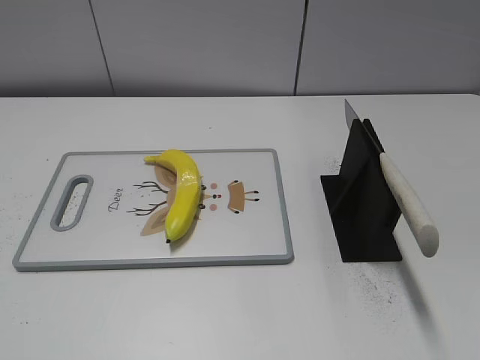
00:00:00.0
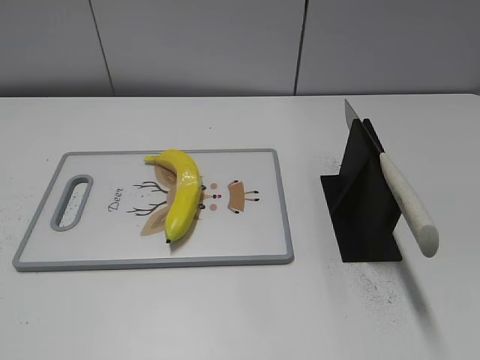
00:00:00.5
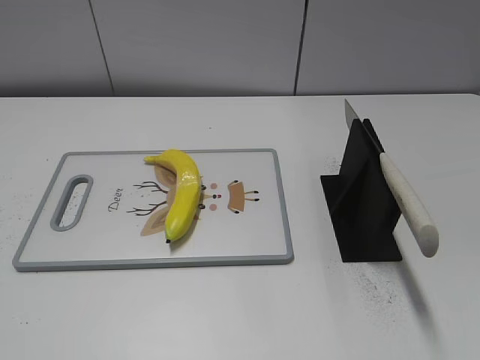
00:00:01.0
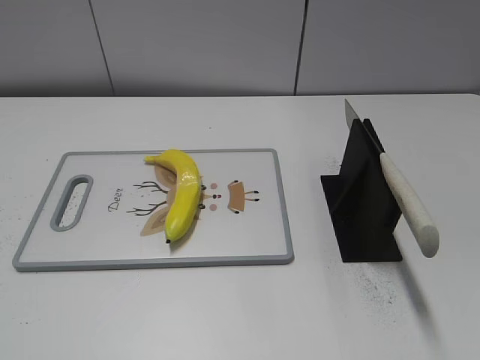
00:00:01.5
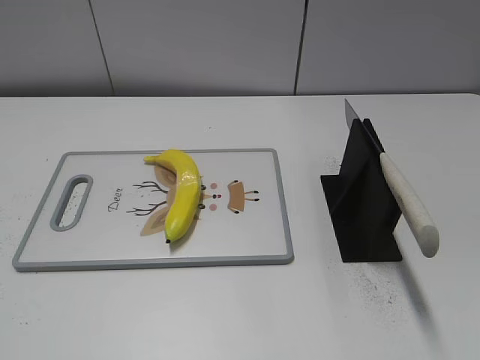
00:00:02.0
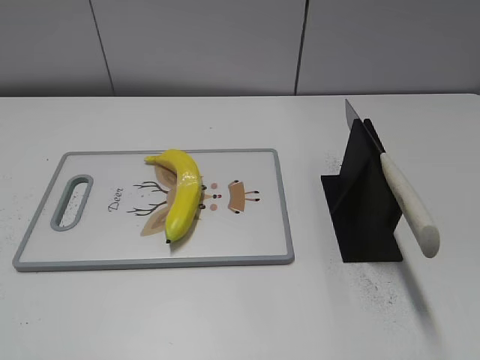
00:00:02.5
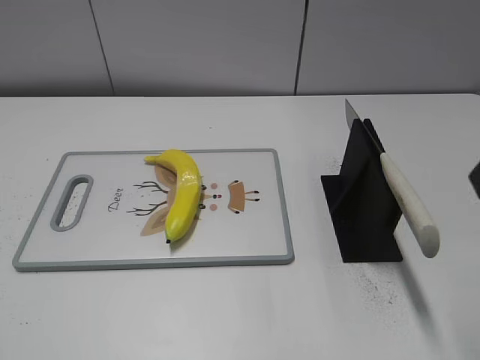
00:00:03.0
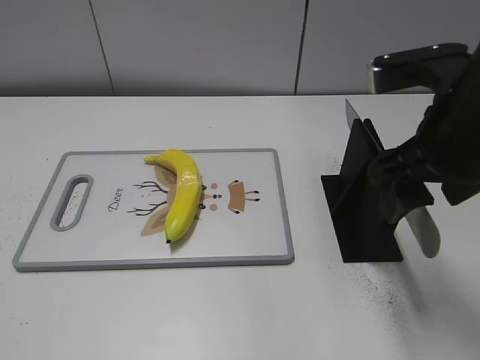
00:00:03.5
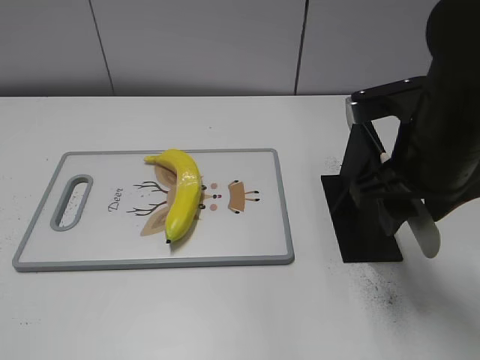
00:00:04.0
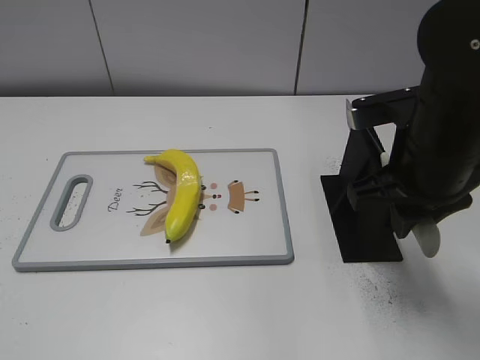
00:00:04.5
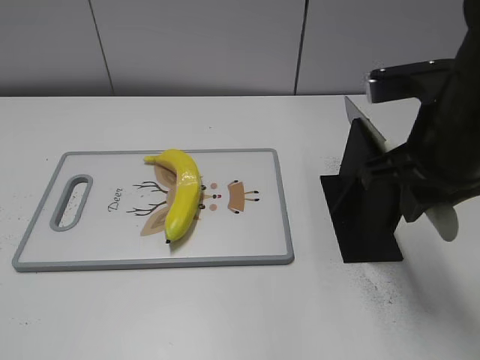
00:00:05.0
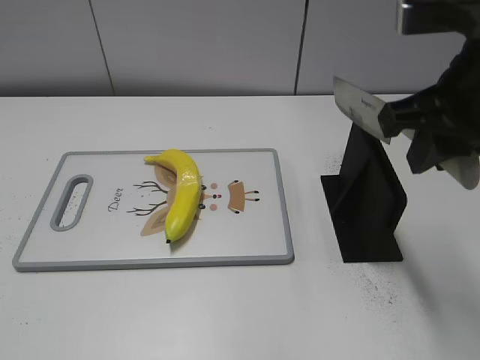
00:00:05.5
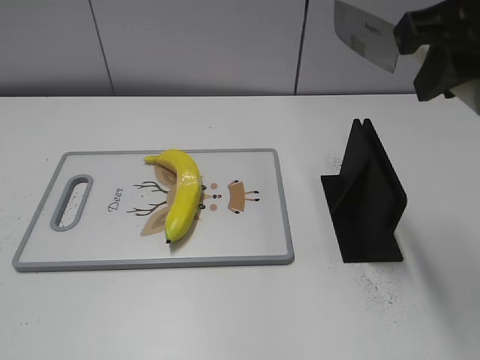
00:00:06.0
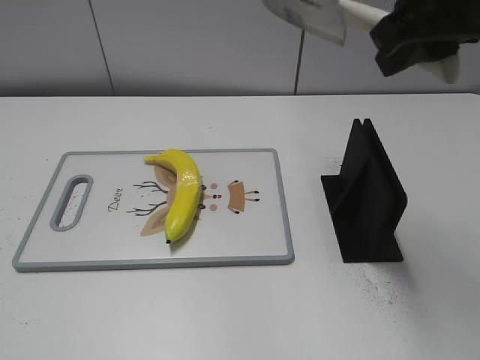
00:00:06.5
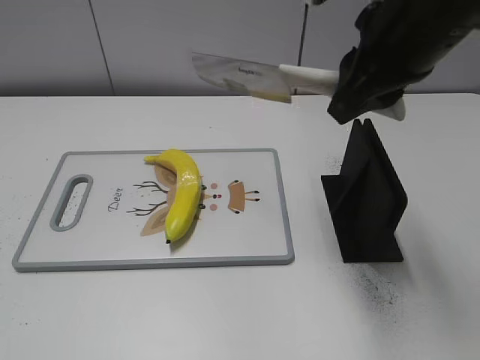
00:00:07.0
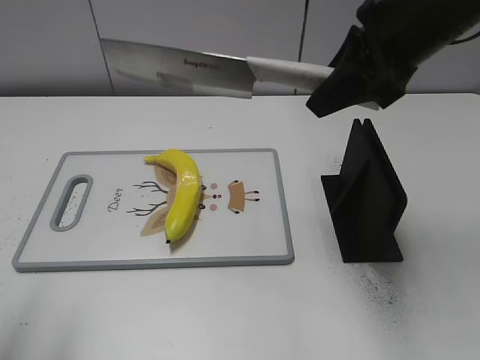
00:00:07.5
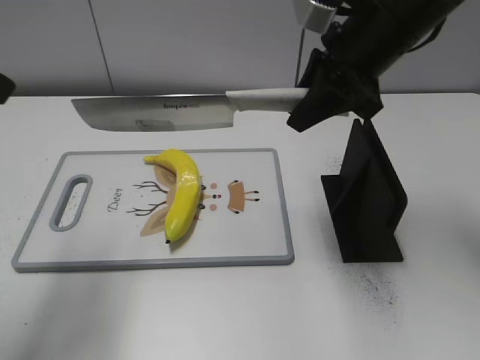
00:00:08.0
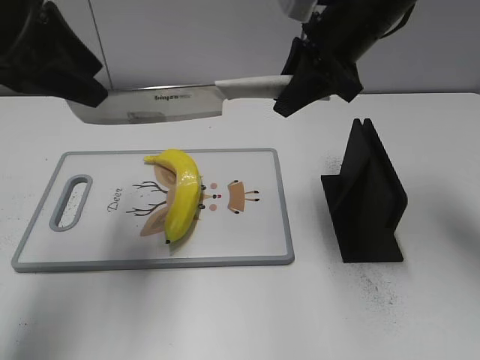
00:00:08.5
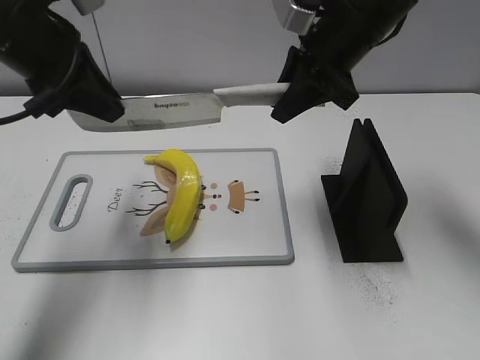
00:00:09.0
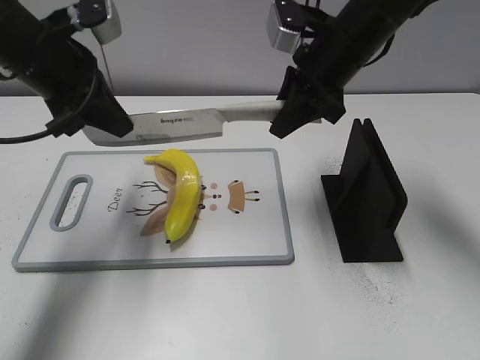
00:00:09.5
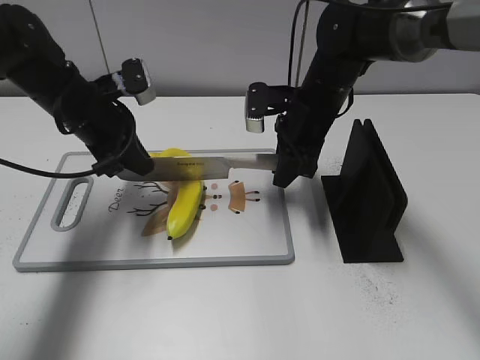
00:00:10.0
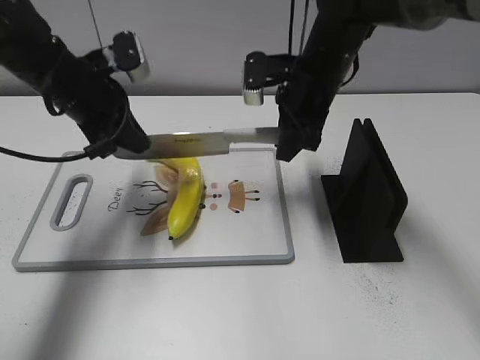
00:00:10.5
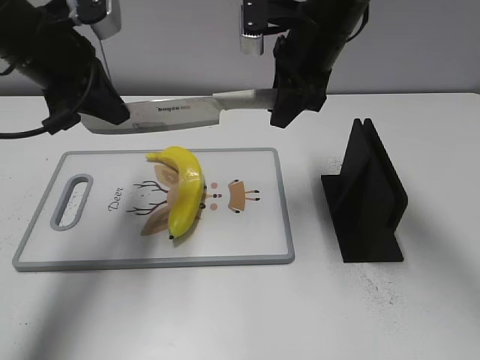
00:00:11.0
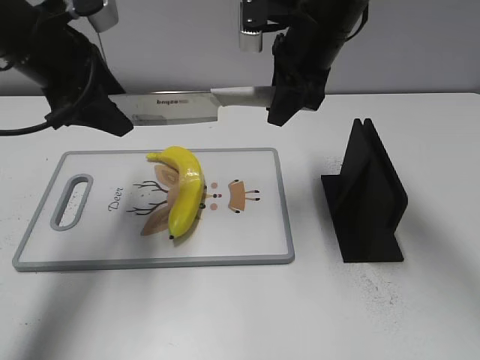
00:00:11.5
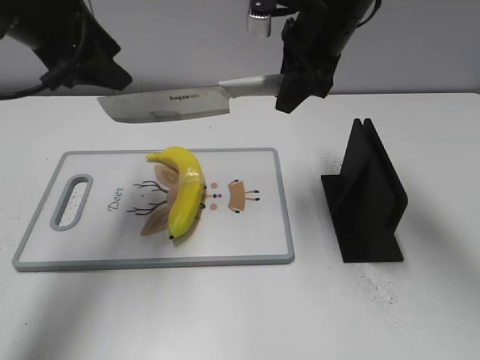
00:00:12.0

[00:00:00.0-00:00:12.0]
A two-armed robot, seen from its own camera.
Task of the whole recording: cut plastic banana.
Step, 00:00:00.0 to 00:00:05.0: Grab the knife handle with your right hand.
Step, 00:00:05.5 to 00:00:11.0: Lift the knife with your right hand.
00:00:02.0 to 00:00:04.0: The right gripper goes roughly 25 cm forward and to the left.
00:00:04.0 to 00:00:06.0: The right gripper moves upward, roughly 15 cm, and closes up.
00:00:06.0 to 00:00:08.0: The right gripper goes roughly 15 cm forward and downward. The left gripper is displaced forward by approximately 25 cm.
00:00:08.0 to 00:00:10.0: The left gripper moves downward and forward, approximately 25 cm, and closes up; the right gripper heads downward and forward, covering about 15 cm.
00:00:10.0 to 00:00:12.0: Both grippers move upward, some 15 cm. The left gripper opens up.

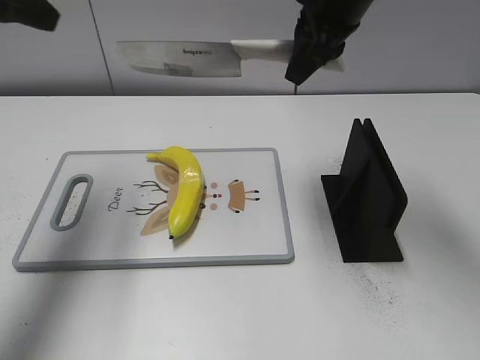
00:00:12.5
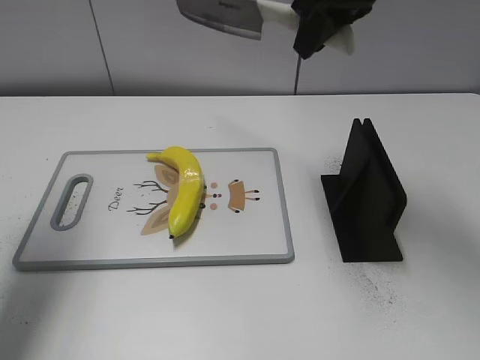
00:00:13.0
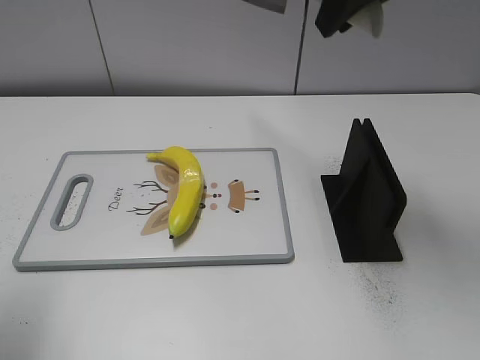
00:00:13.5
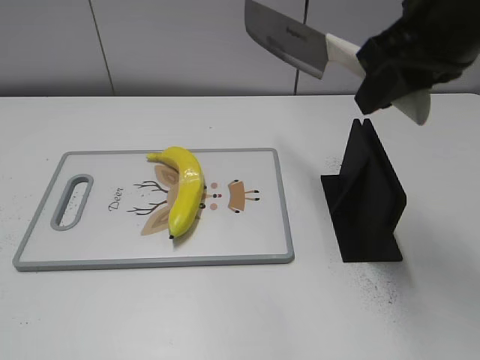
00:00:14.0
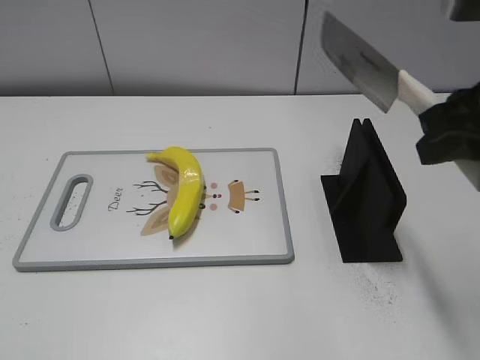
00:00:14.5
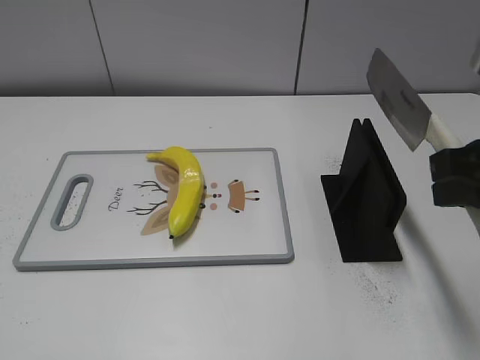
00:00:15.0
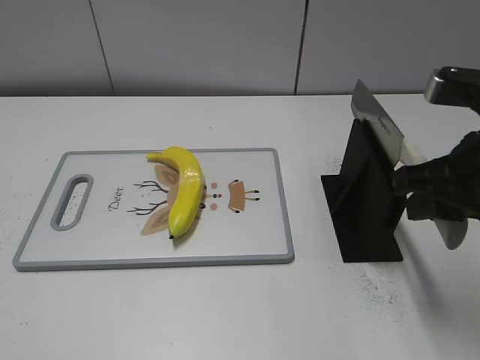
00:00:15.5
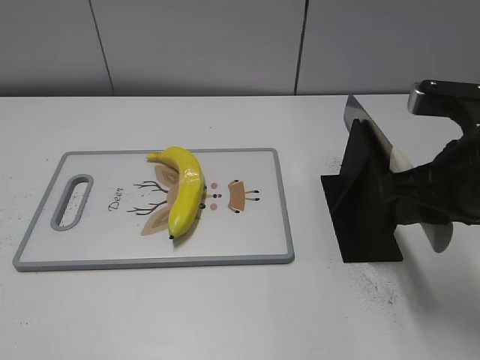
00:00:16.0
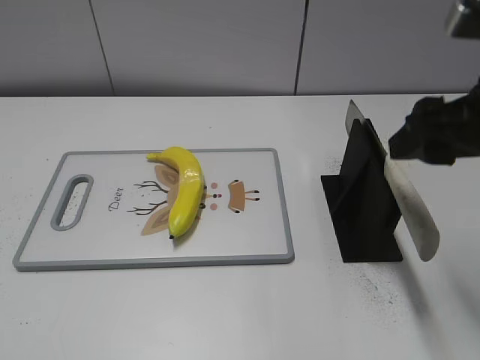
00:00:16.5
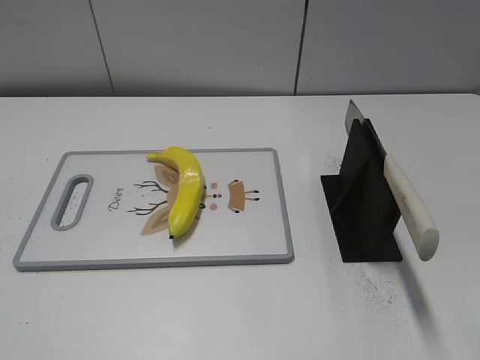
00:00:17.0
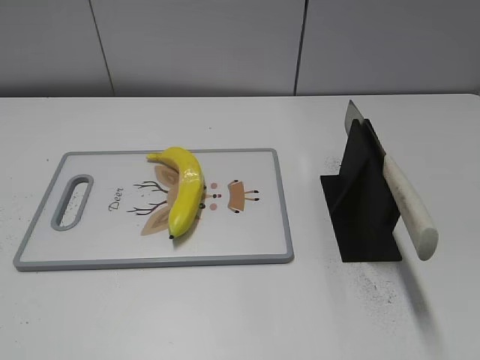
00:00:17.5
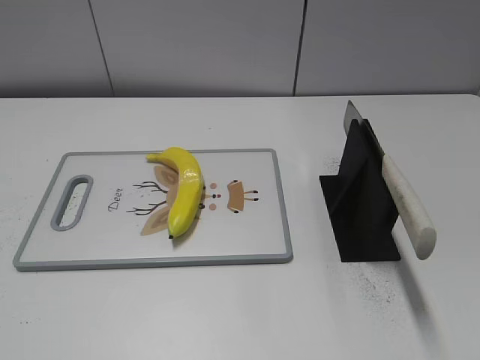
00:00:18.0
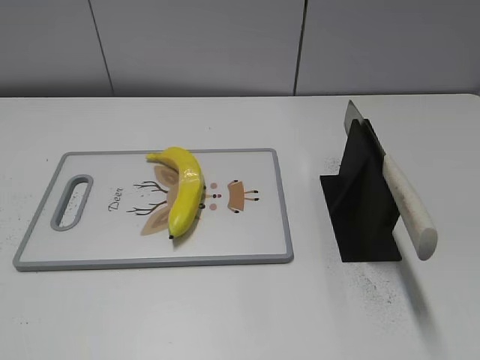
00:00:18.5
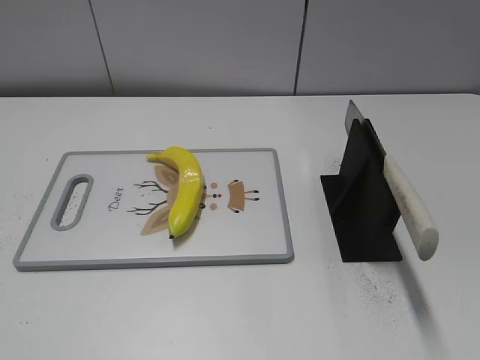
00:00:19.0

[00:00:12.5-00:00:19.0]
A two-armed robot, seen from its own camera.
Task of the whole recording: cut plastic banana.
Step, 00:00:13.0 to 00:00:14.0: Lift the knife with your right hand.
Step, 00:00:14.5 to 00:00:19.0: Place the knife on the storage rack with your right hand.
00:00:12.5 to 00:00:14.5: The right gripper shifts roughly 20 cm backward and to the right. The left gripper moves backward, roughly 35 cm.
00:00:14.5 to 00:00:17.0: The right gripper travels backward by approximately 10 cm, and opens up.
